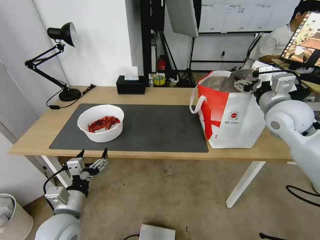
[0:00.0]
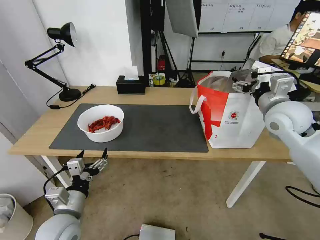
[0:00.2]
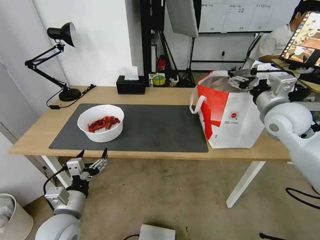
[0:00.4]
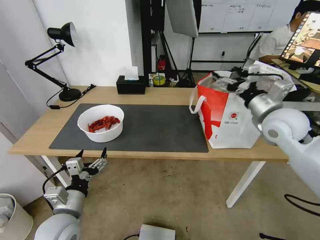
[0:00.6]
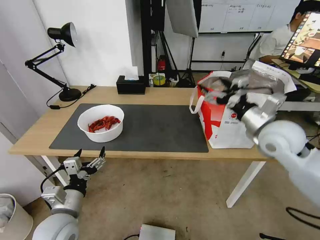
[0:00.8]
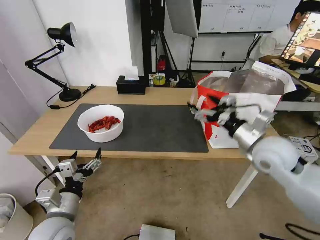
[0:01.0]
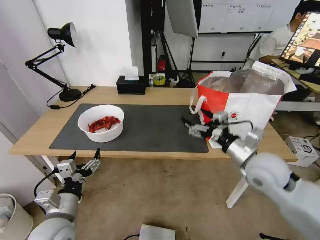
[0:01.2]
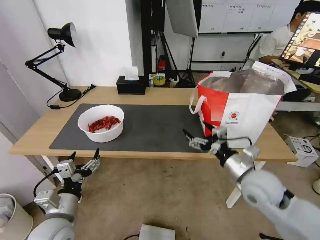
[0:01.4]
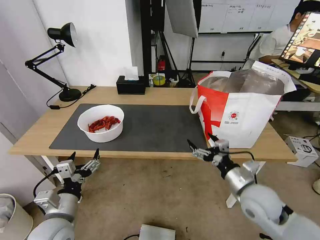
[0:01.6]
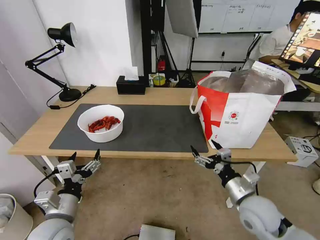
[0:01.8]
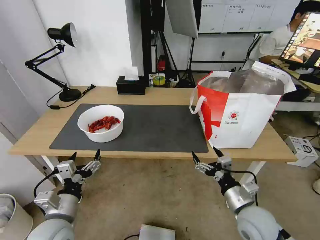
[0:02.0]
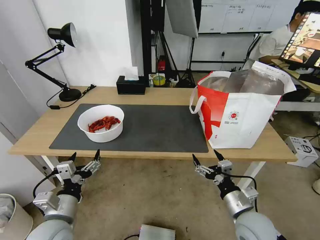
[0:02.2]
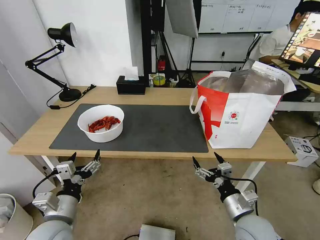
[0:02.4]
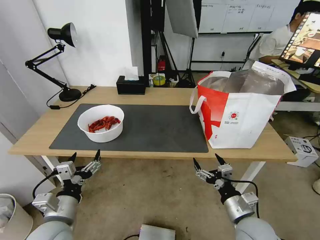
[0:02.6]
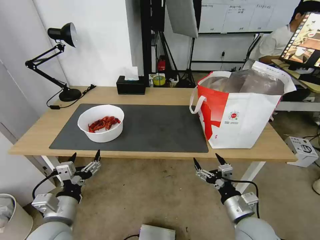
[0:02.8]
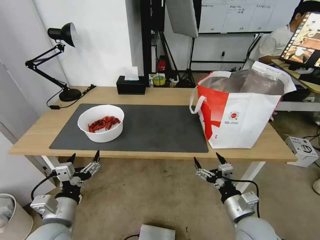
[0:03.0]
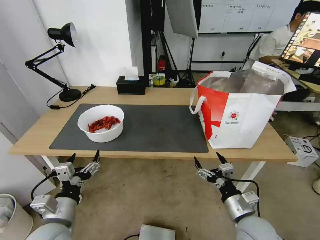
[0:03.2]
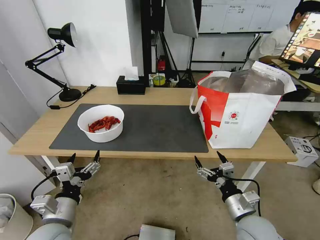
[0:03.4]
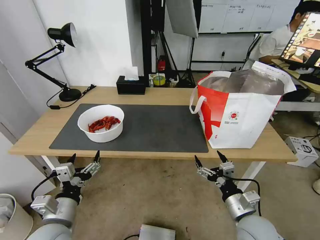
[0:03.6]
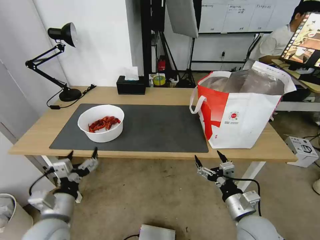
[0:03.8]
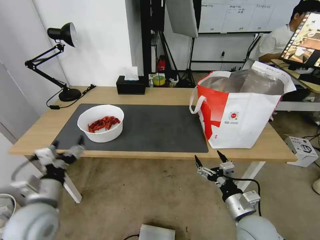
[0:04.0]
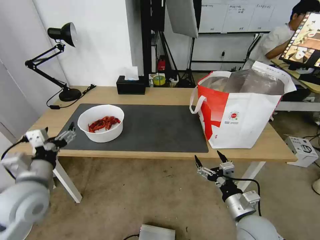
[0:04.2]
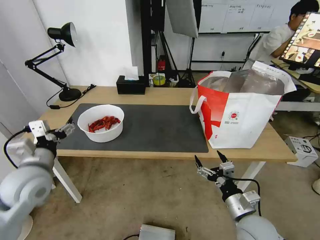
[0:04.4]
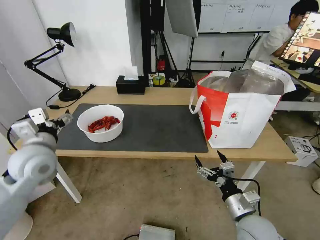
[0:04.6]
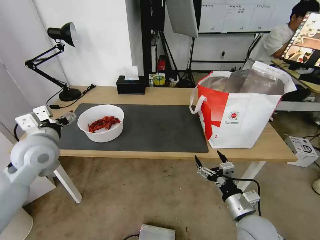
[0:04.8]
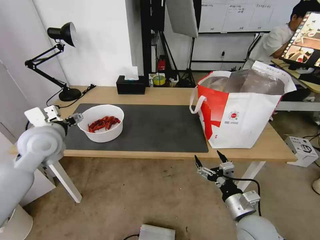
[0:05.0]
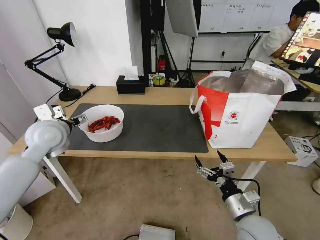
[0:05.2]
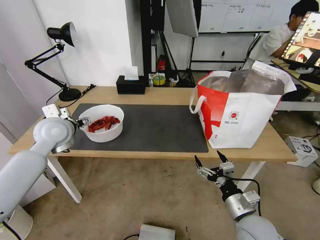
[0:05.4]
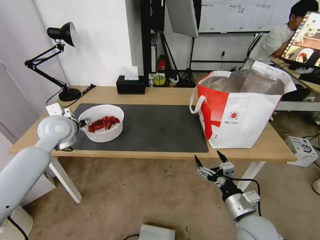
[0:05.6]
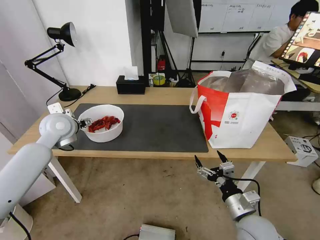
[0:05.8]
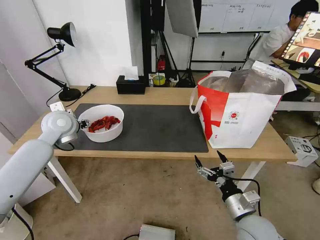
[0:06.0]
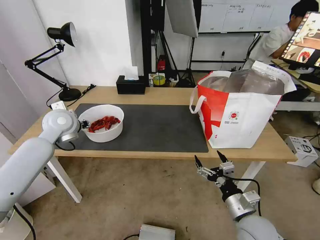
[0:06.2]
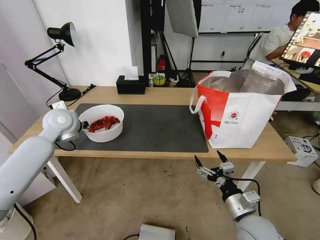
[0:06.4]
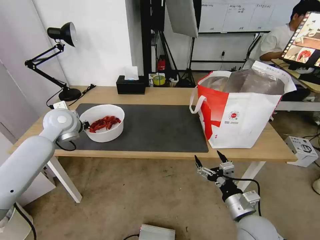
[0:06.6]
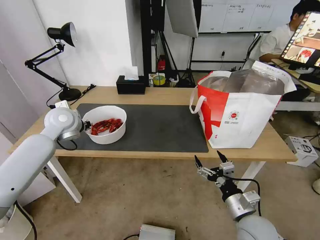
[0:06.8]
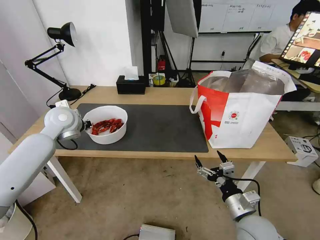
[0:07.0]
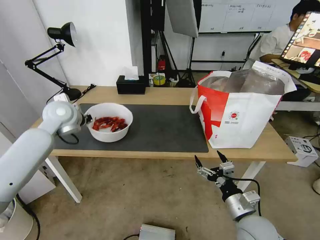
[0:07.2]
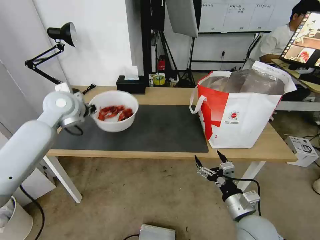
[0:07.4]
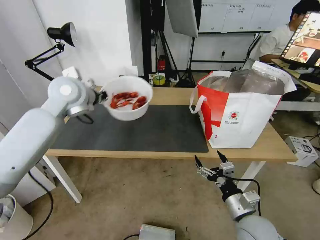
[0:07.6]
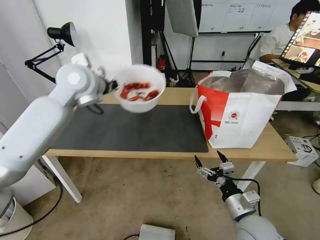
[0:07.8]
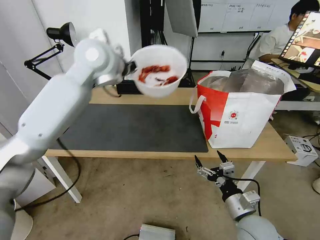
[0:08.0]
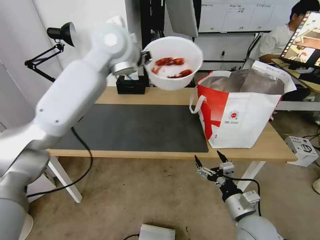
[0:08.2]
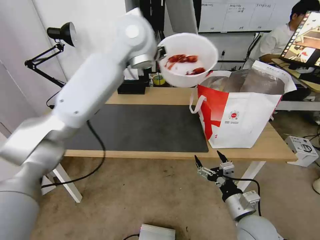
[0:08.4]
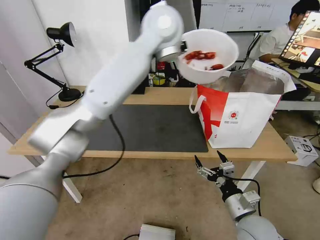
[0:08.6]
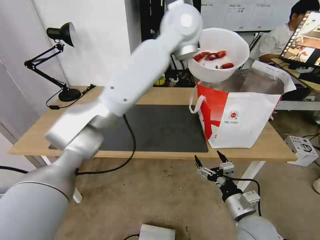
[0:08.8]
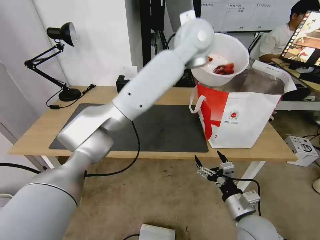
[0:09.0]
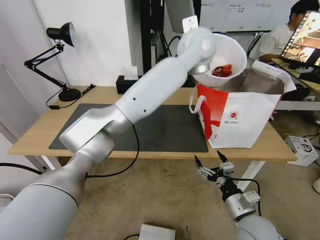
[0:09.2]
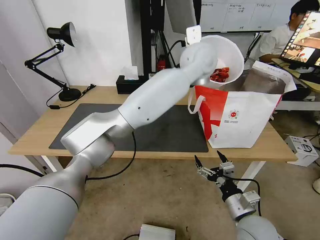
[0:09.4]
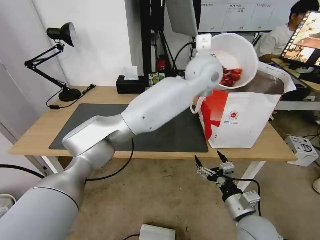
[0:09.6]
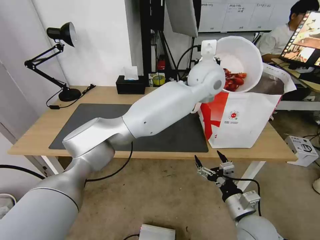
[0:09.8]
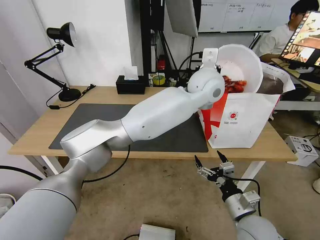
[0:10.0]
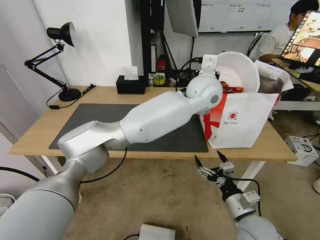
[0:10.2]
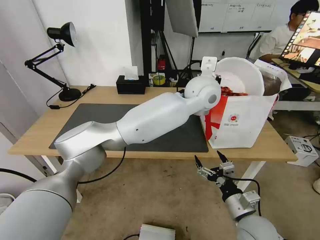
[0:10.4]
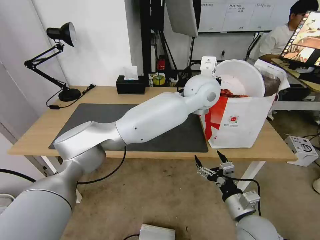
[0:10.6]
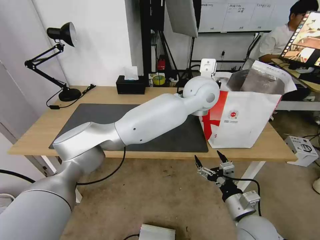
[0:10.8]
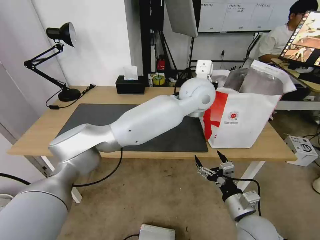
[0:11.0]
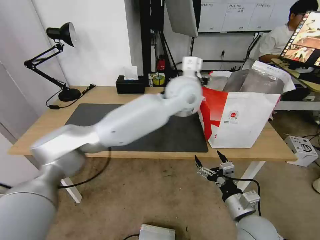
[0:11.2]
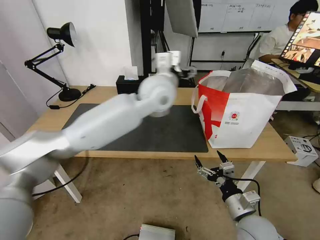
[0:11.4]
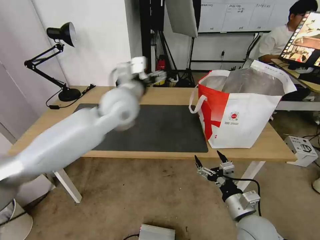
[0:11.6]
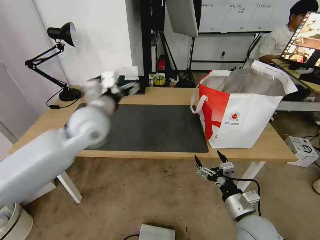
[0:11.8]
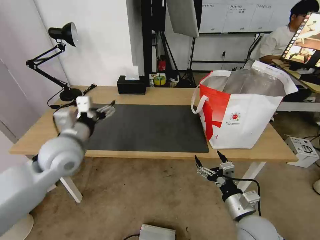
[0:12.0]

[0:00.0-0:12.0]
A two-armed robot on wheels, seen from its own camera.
Task of the whole recording: Pick up the trash from the table and place it into the takeout bag.
0:00.0 to 0:01.6: The right gripper shifts roughly 25 cm downward and backward.
0:01.6 to 0:03.0: The right gripper heads backward and downward, covering about 10 cm.
0:03.0 to 0:04.4: The left gripper travels forward, upward and to the left by roughly 15 cm.
0:04.4 to 0:06.0: The left gripper is displaced forward by roughly 15 cm.
0:06.0 to 0:07.6: The left gripper travels upward and to the right by some 15 cm, and closes.
0:07.6 to 0:09.0: The left gripper shifts some 35 cm to the right.
0:09.0 to 0:10.4: The left gripper is displaced downward by roughly 10 cm.
0:10.4 to 0:12.0: The left gripper shifts about 35 cm to the left, and opens up.

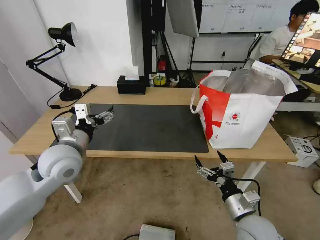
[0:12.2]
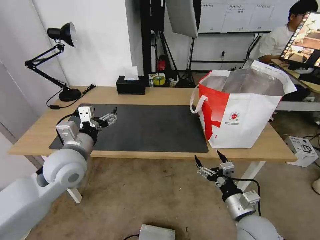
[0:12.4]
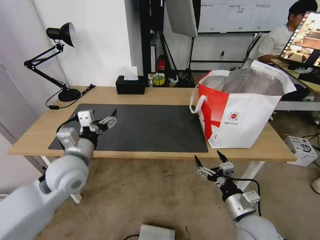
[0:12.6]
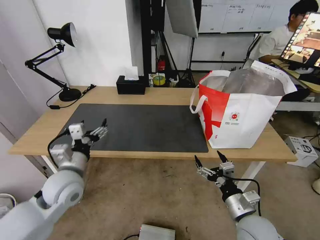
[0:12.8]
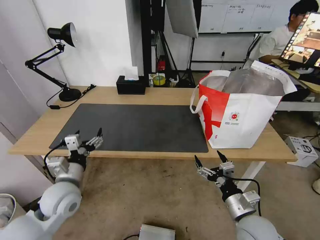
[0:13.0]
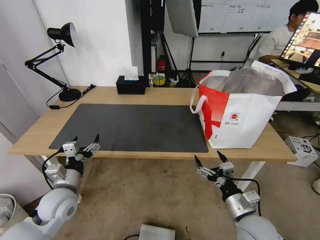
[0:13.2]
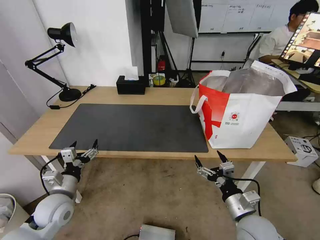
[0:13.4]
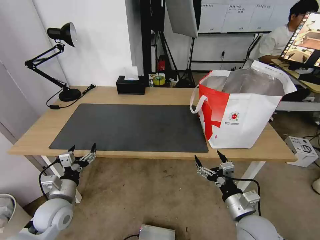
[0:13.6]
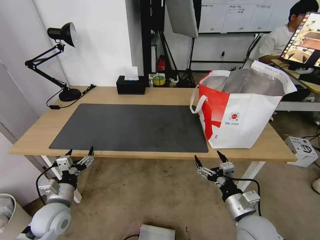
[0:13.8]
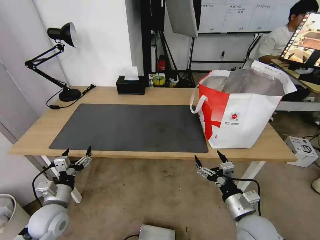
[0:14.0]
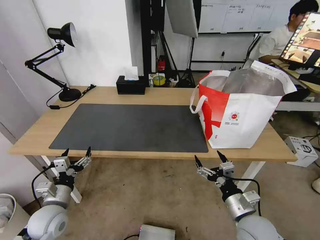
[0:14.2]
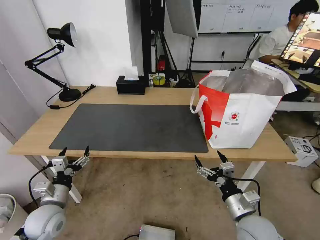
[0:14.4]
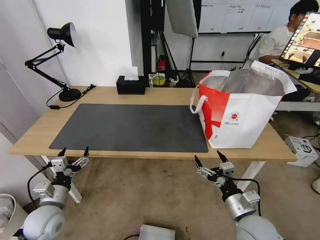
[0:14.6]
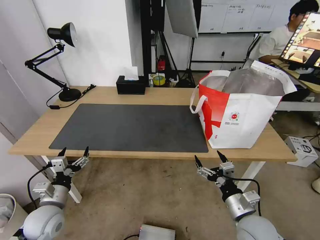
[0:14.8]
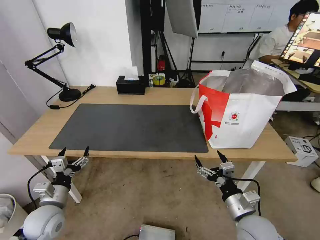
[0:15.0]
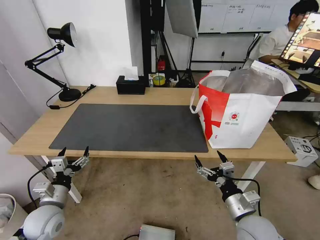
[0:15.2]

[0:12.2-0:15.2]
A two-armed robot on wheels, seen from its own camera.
Task of the whole recording: Pick up the trash from the table and place it into the takeout bag.
0:12.2 to 0:13.8: The left gripper goes some 20 cm downward, backward and to the left.
0:13.8 to 0:15.2: There are only small adjustments of the grippers.

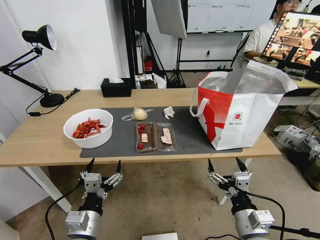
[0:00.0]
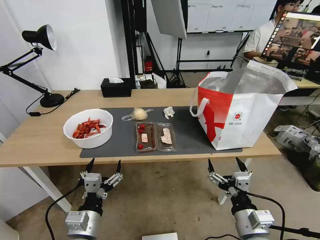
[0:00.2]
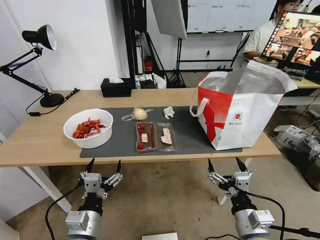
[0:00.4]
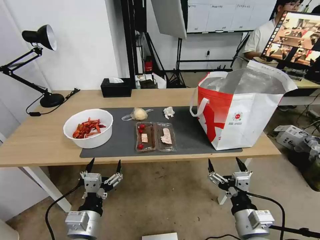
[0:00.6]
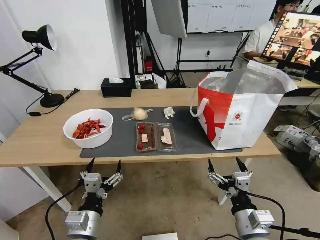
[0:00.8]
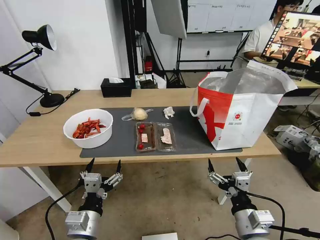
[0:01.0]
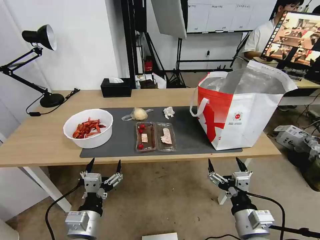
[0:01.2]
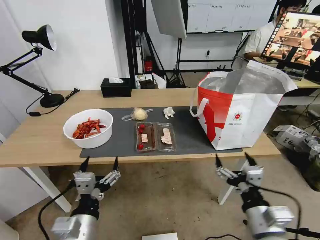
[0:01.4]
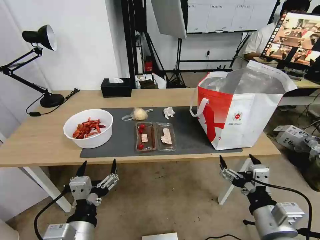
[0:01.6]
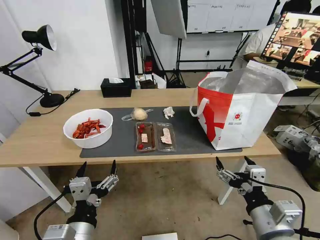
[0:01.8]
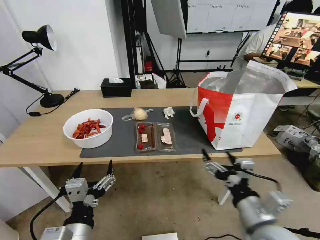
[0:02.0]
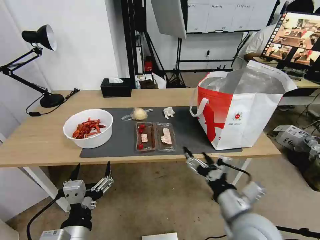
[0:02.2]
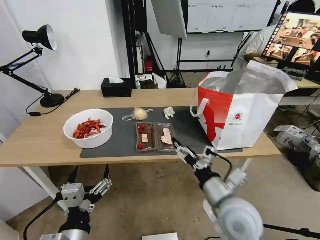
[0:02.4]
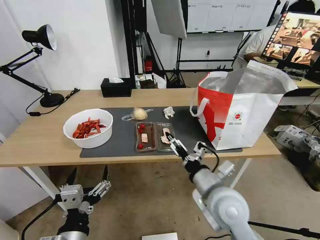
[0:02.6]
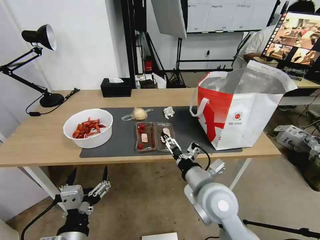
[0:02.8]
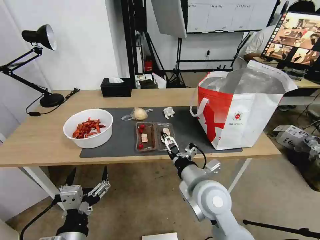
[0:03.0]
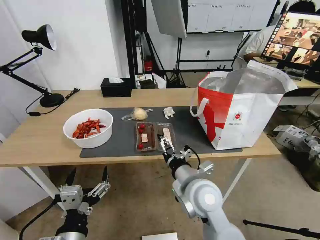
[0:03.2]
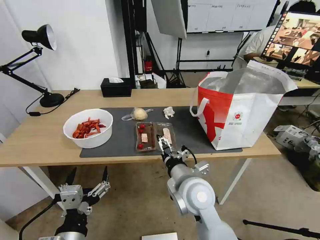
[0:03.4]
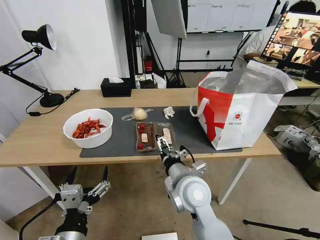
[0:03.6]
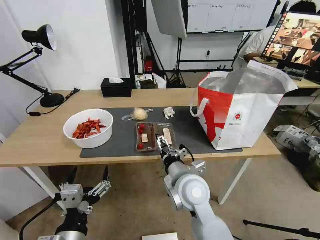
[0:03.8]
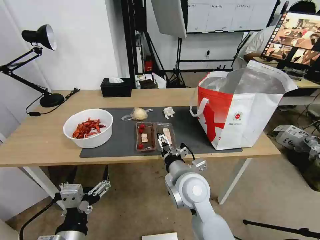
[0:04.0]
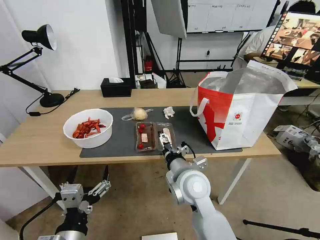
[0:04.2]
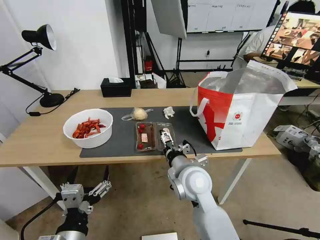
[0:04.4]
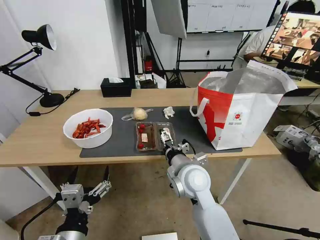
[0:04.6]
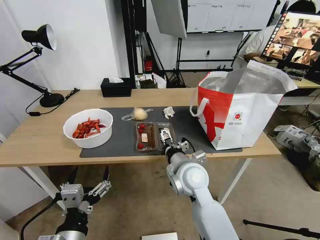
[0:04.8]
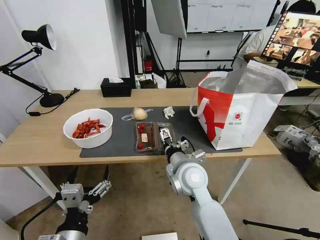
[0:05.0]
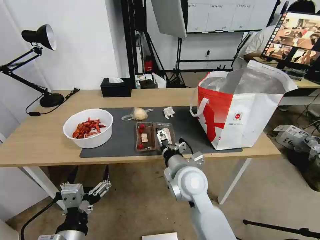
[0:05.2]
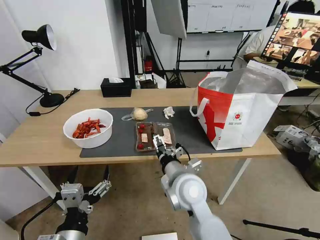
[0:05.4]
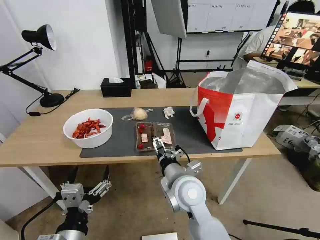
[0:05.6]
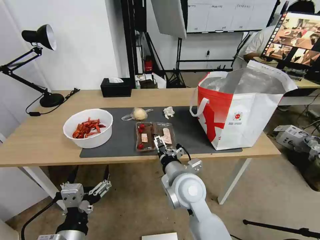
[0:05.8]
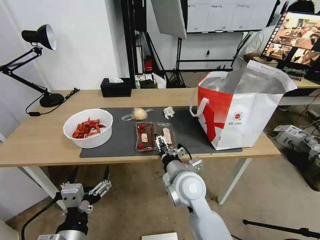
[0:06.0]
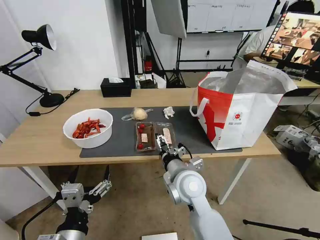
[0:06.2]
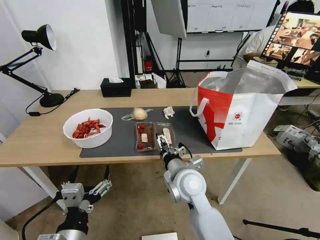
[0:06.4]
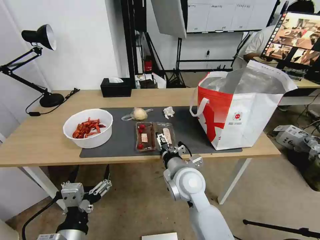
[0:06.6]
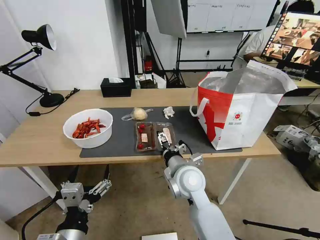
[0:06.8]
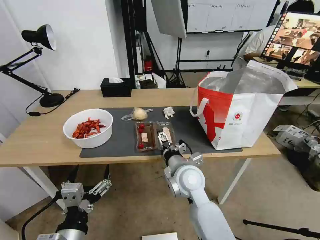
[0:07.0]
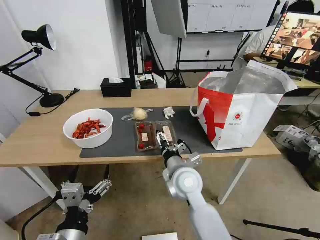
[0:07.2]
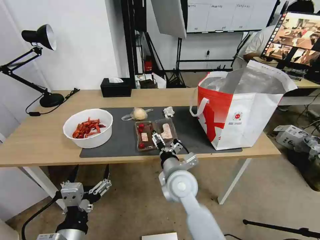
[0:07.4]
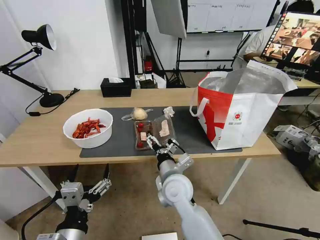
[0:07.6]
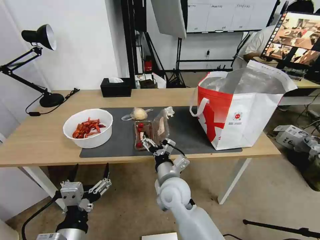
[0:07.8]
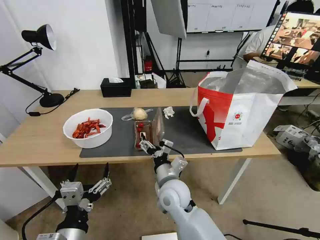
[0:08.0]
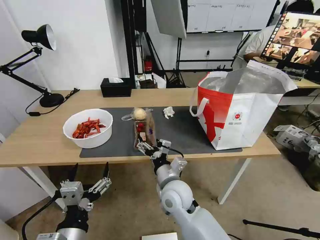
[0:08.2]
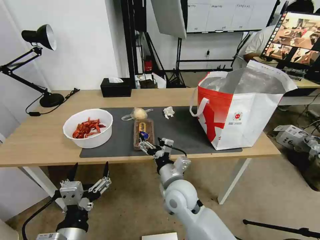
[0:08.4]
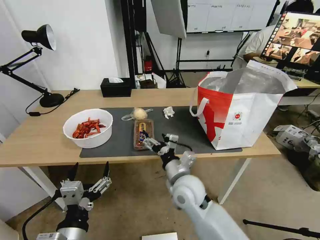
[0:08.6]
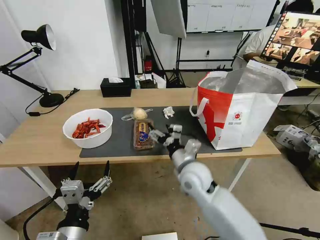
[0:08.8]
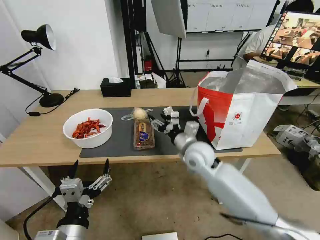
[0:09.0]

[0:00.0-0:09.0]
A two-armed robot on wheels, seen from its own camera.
Task of the whole recording: Pick up the trash from the table and place it into the takeout bag.
0:01.6 to 0:03.0: The right gripper goes approximately 20 cm to the left and forward.
0:03.0 to 0:04.4: The right gripper shifts by roughly 5 cm.
0:04.4 to 0:06.0: The grippers move only a little.
0:07.6 to 0:09.0: The right gripper goes approximately 10 cm forward and to the right.
